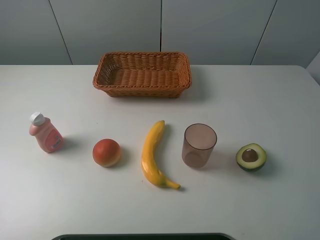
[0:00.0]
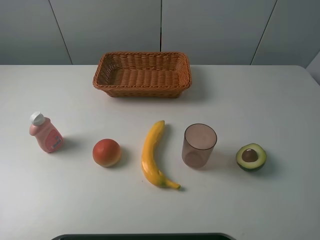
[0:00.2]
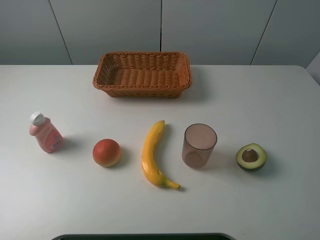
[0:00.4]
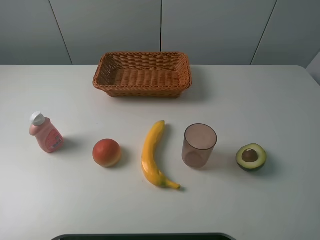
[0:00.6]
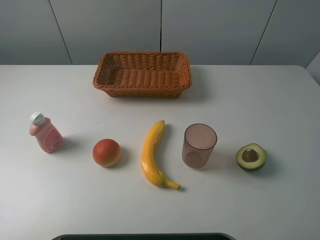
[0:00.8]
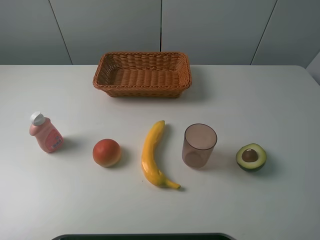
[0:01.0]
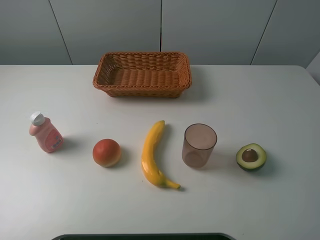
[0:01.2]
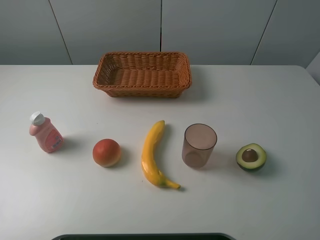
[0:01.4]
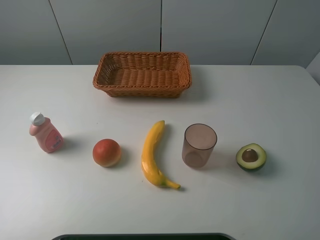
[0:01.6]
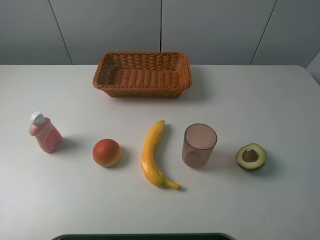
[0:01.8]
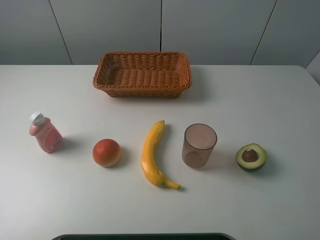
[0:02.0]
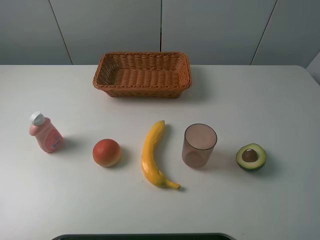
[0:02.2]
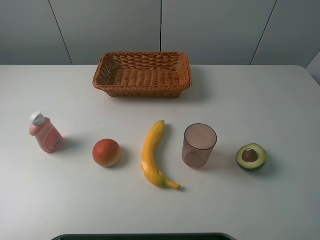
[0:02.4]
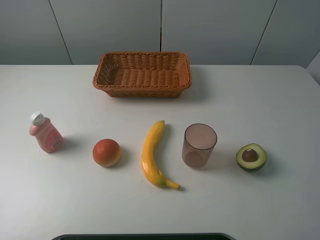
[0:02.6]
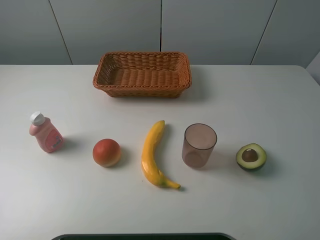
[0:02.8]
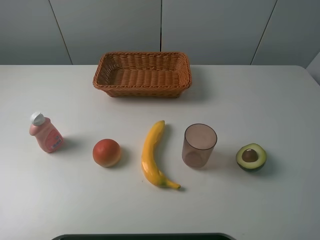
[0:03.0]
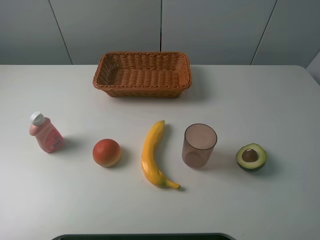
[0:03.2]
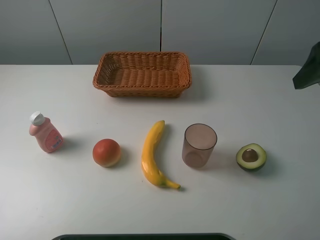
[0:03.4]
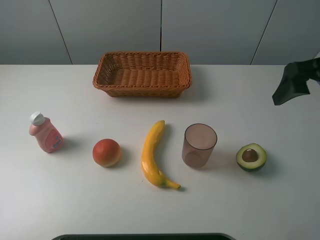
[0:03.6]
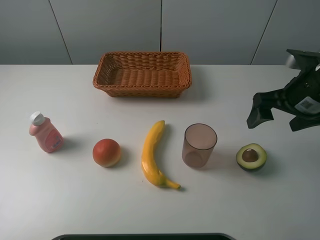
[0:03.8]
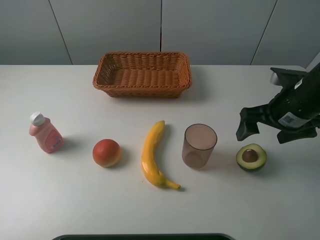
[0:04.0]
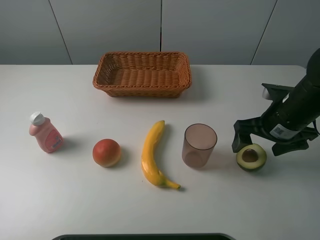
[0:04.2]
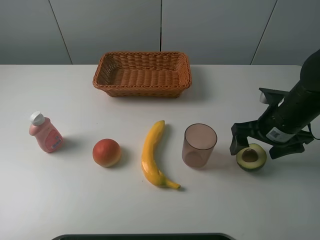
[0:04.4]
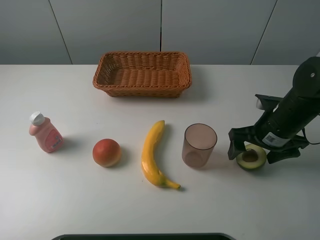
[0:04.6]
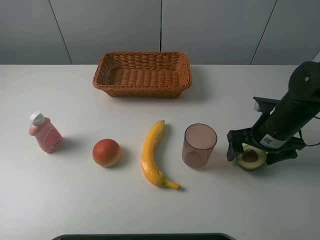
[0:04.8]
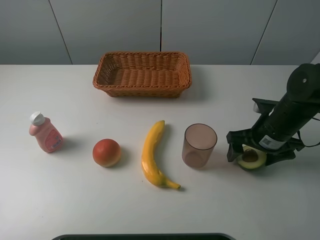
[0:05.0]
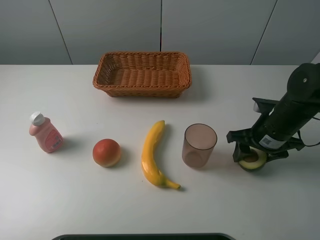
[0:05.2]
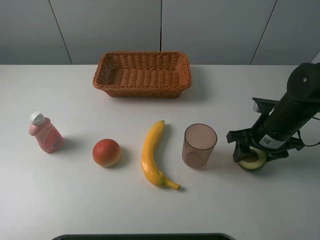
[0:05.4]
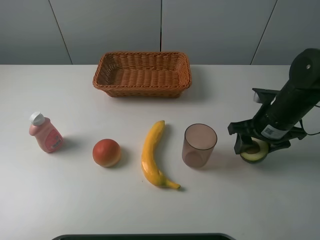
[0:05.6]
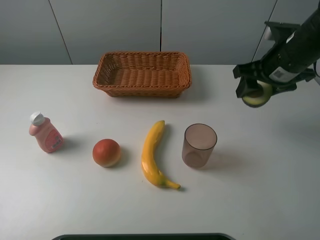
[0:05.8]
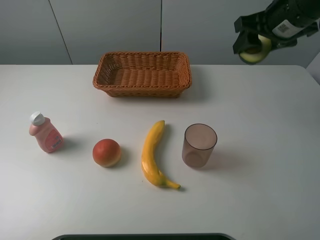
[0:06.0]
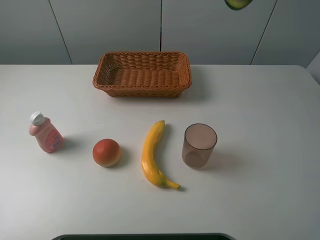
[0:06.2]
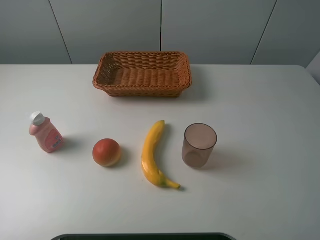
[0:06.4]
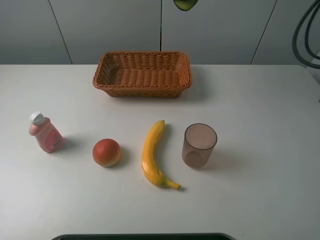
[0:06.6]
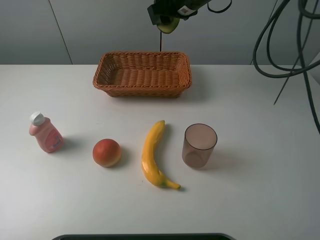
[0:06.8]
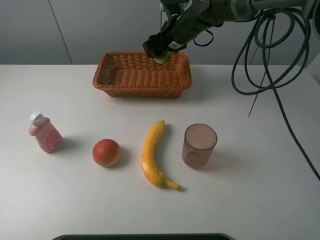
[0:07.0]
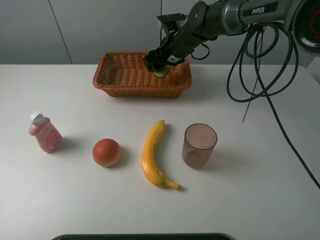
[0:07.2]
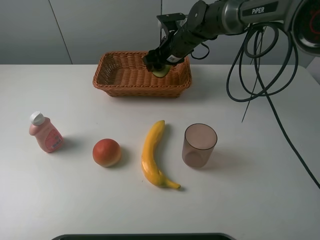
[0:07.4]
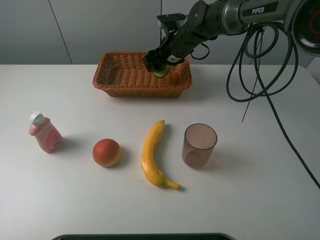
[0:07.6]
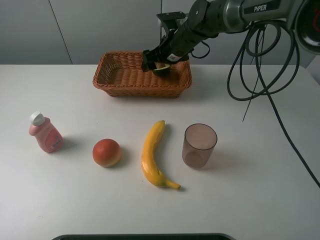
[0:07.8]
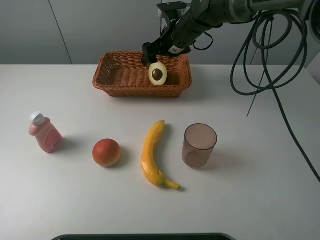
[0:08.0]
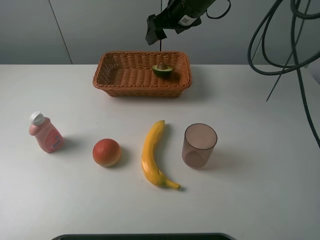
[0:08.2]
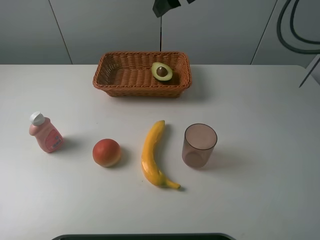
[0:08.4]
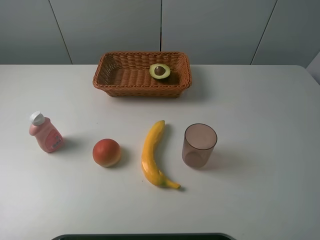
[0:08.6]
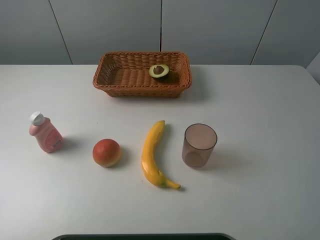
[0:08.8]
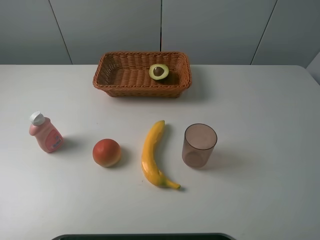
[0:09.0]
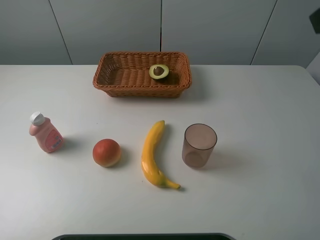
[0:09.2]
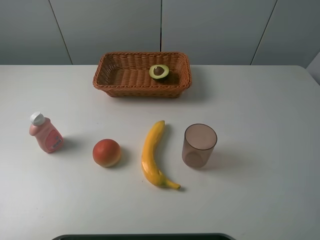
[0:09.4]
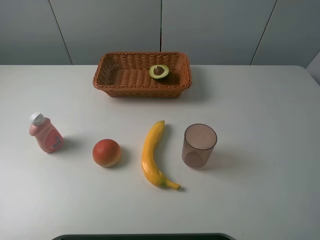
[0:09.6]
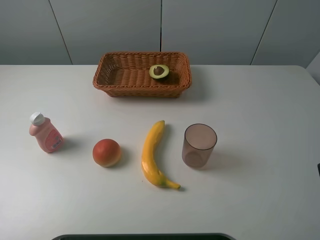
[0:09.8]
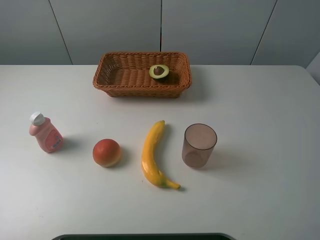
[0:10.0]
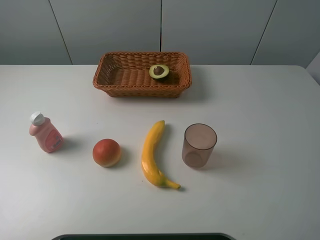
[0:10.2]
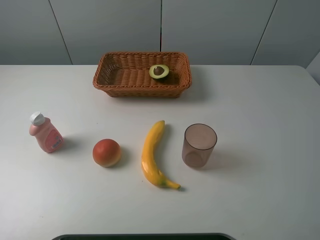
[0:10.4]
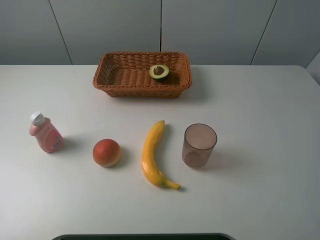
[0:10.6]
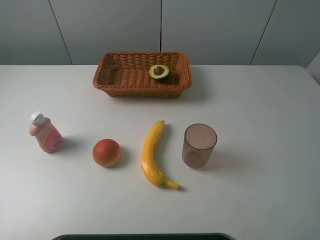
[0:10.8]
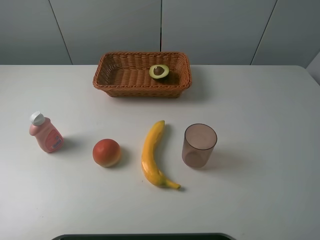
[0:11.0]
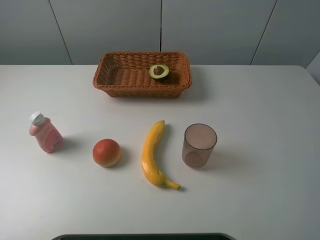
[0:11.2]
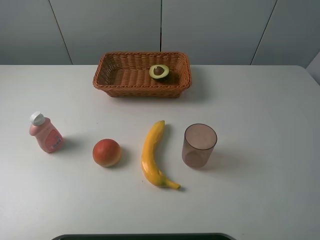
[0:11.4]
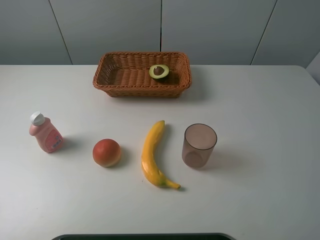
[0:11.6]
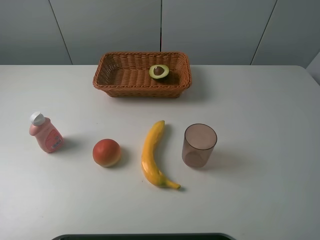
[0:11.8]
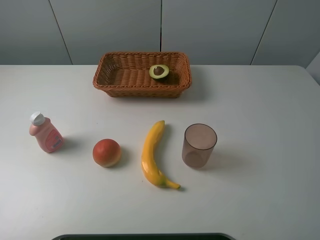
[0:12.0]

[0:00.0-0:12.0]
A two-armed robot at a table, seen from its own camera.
Task of the whole recording: randomly pick up an item from the table and put it in the basket.
Step, 0:00.0 to 0:05.0: Grasp the avocado with the right gripper.
Step, 0:05.2 to 0:08.2: Place the avocado into the basket with the right gripper.
0:00.0 to 0:01.6: Both grippers stay about where they are.
0:03.0 to 0:04.4: The right gripper goes roughly 30 cm downward and forward.
0:04.4 to 0:06.0: The right gripper is displaced upward and forward by roughly 20 cm, and closes.
0:06.0 to 0:07.6: The right gripper heads to the left, downward and forward, covering roughly 25 cm.
0:07.6 to 0:09.0: The right gripper goes about 40 cm upward, backward and to the right, and opens its fingers.
